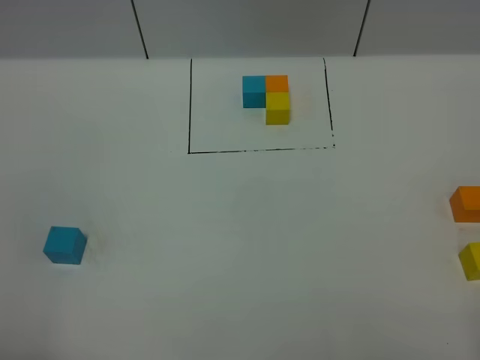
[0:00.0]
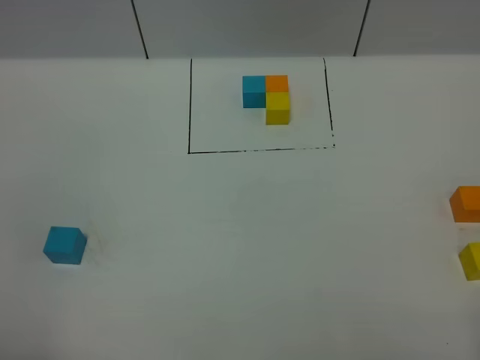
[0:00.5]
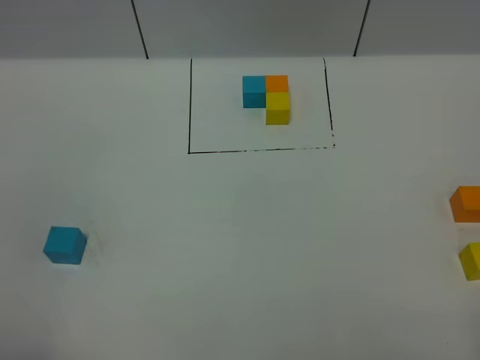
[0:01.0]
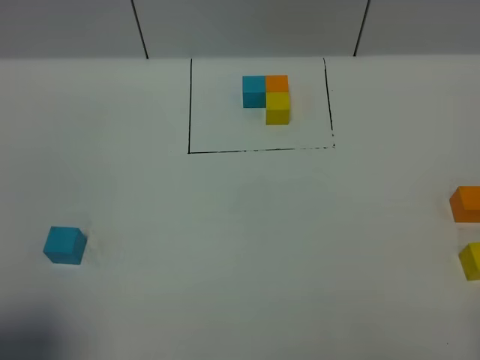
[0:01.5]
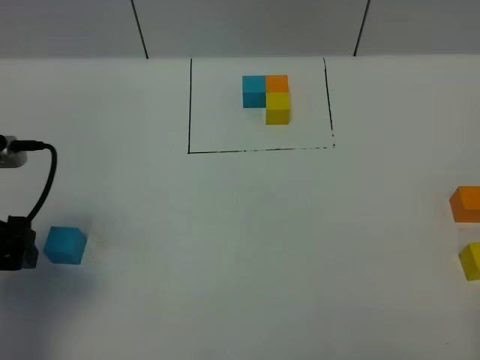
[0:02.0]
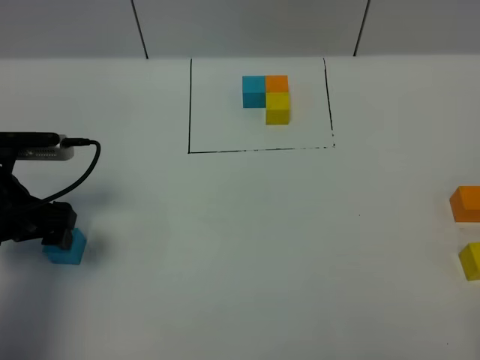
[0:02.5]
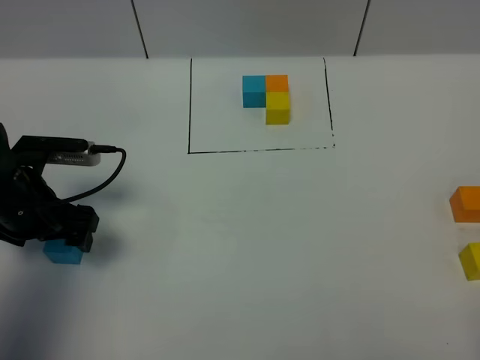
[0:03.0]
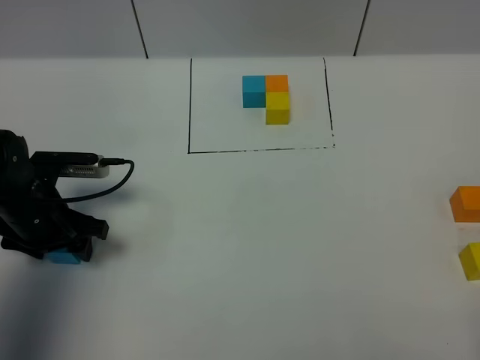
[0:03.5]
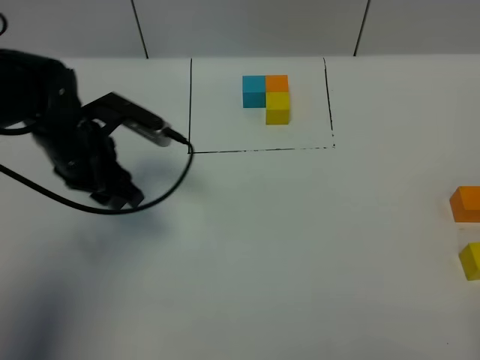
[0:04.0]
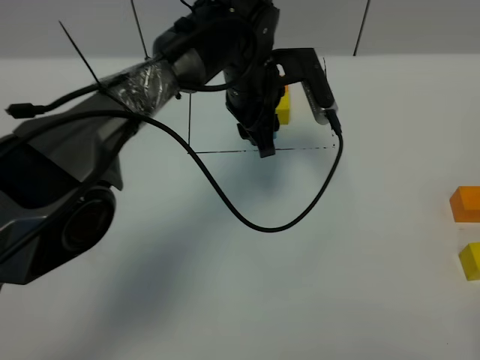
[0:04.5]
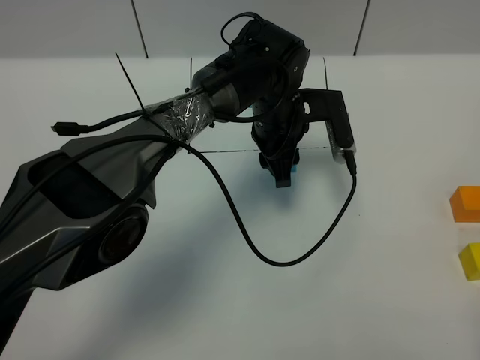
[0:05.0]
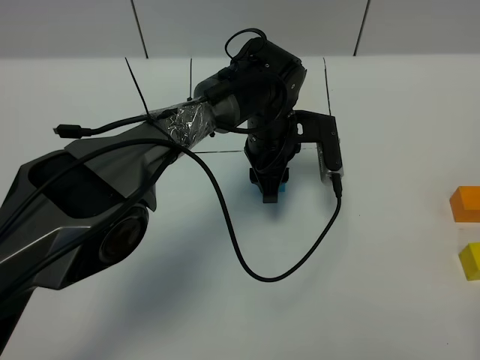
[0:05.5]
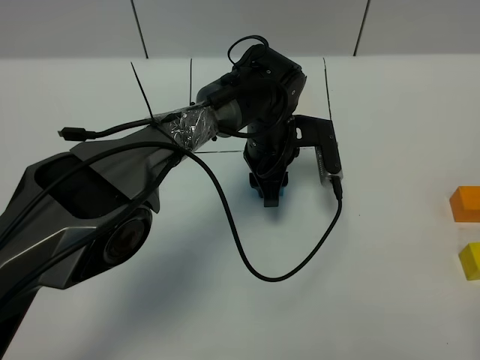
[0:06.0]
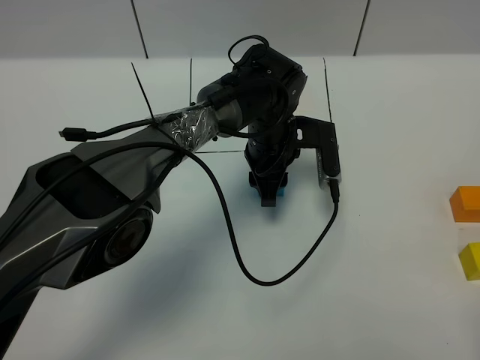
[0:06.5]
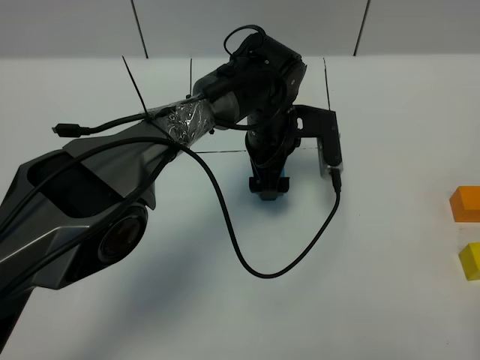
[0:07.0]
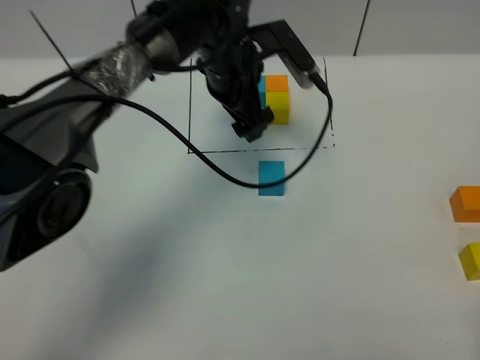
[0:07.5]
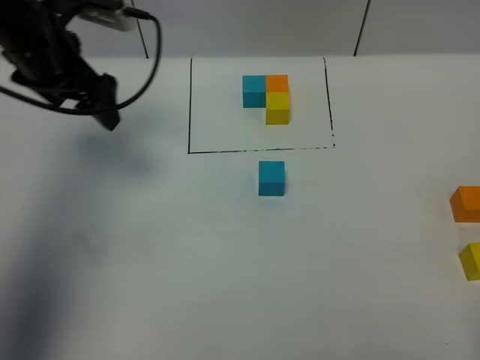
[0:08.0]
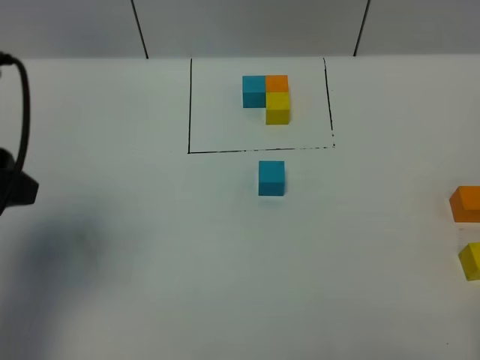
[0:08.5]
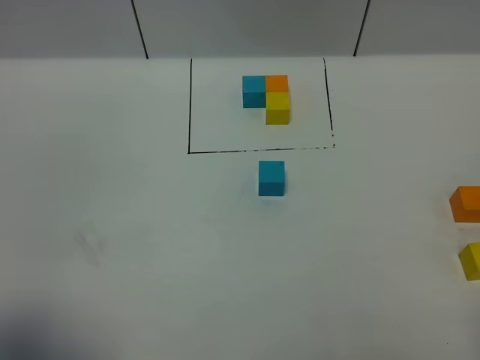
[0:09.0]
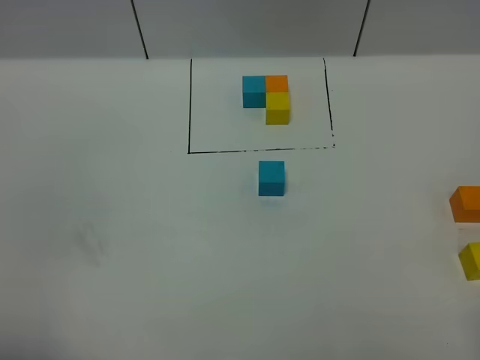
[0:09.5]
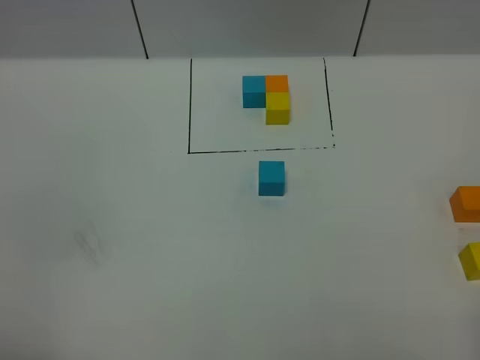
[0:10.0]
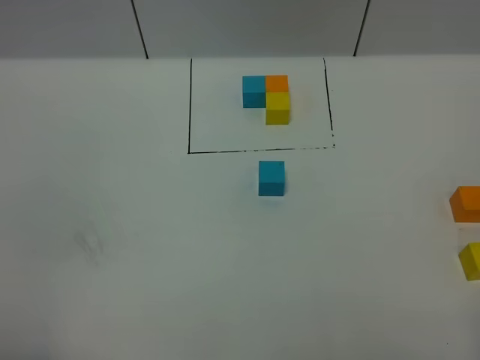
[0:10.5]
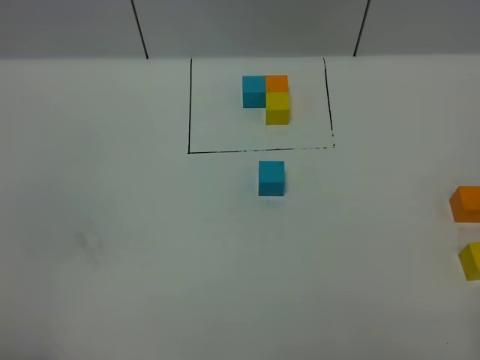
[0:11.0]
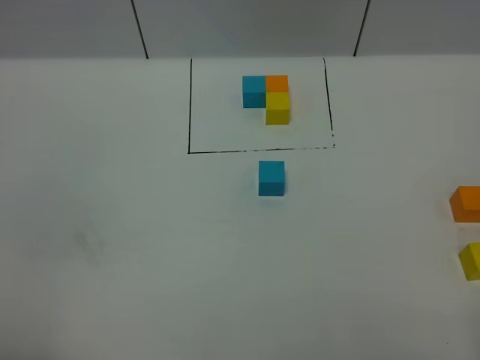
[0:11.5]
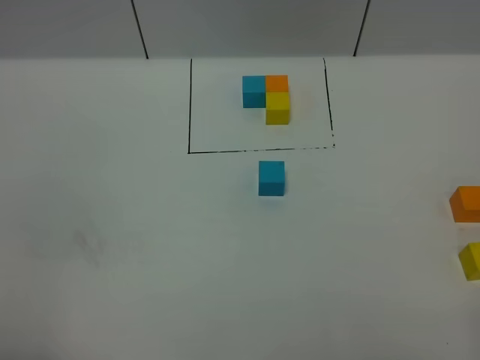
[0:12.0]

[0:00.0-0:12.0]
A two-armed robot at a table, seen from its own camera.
Task of the whole recording: According to the building block template in front, assemble the scattered blocks together.
Step, 0:00.0 to 0:06.5: Put the blue build block in the center of the table.
0:00.0 to 0:02.0: The left gripper goes roughly 20 cm forward.
0:02.0 to 0:04.0: The left gripper shifts about 20 cm forward and to the right, and closes its fingers.
0:04.0 to 0:06.0: The left gripper is displaced to the right by approximately 20 cm.
0:06.0 to 0:08.0: The left gripper moves to the left and upward, approximately 30 cm, and opens its fingers.
0:08.0 to 0:10.0: The left gripper heads backward, covering roughly 40 cm.
0:10.0 to 0:12.0: Both grippers stay put.

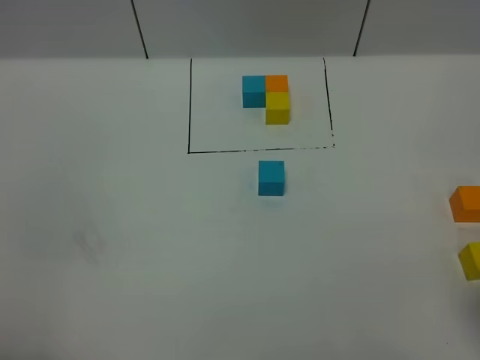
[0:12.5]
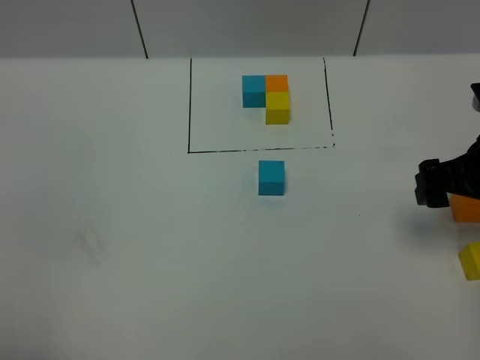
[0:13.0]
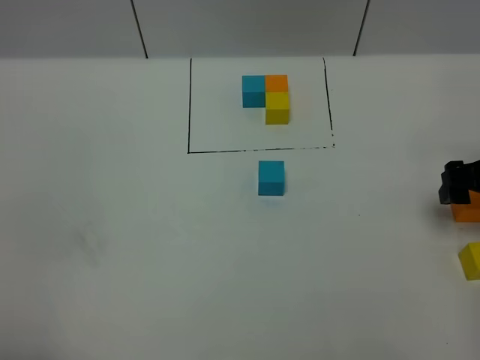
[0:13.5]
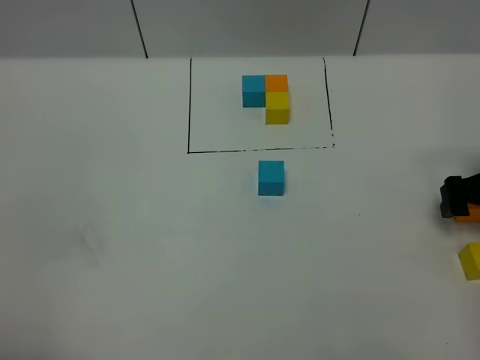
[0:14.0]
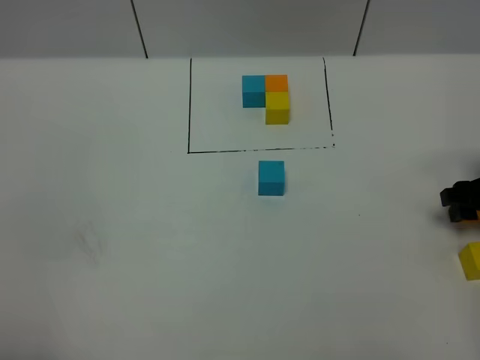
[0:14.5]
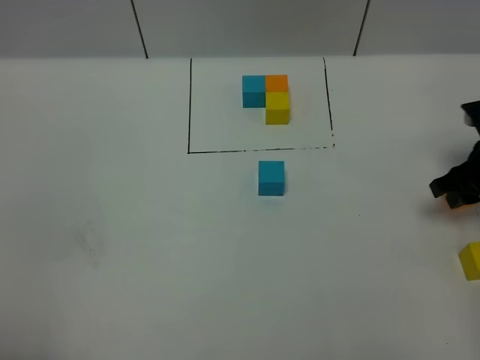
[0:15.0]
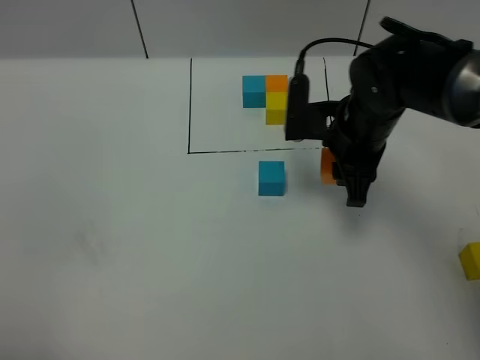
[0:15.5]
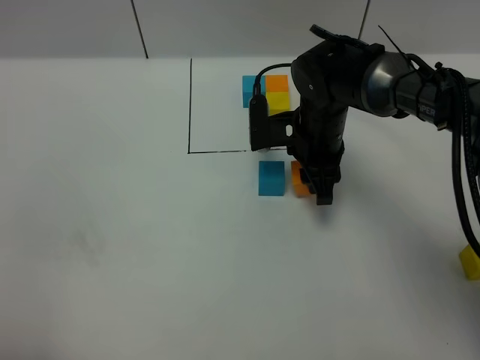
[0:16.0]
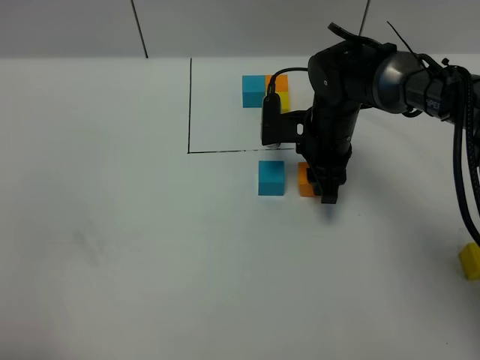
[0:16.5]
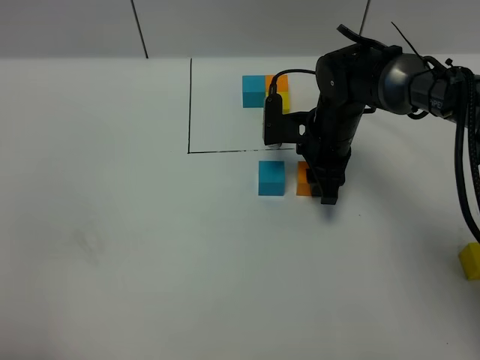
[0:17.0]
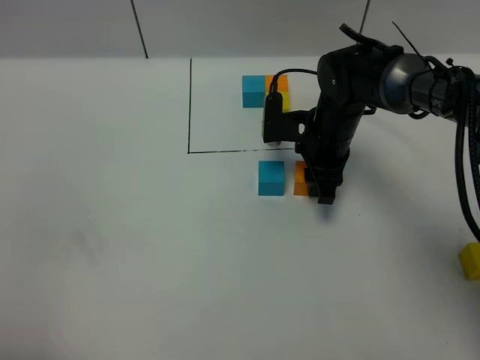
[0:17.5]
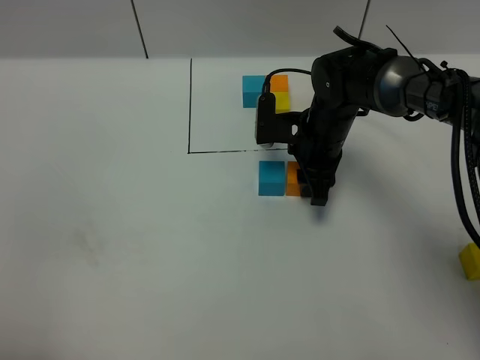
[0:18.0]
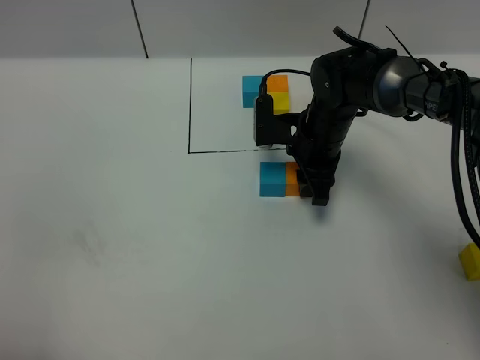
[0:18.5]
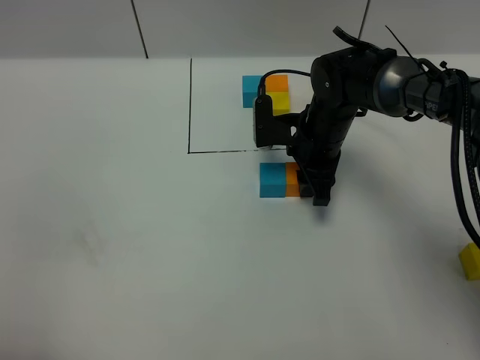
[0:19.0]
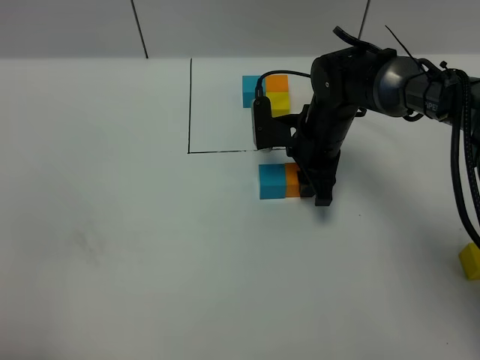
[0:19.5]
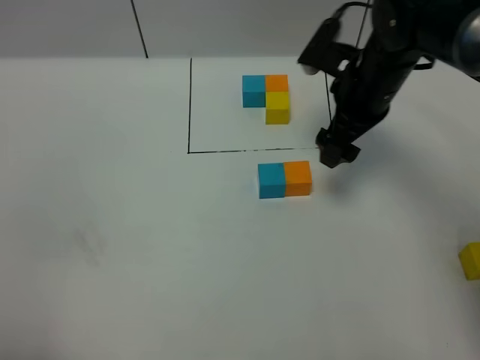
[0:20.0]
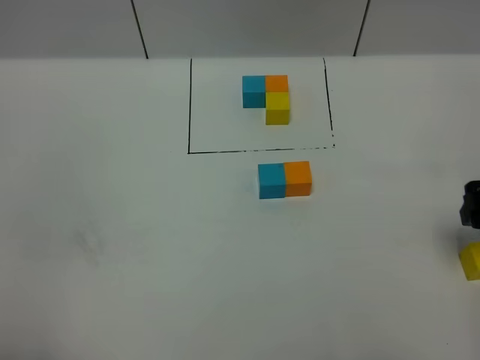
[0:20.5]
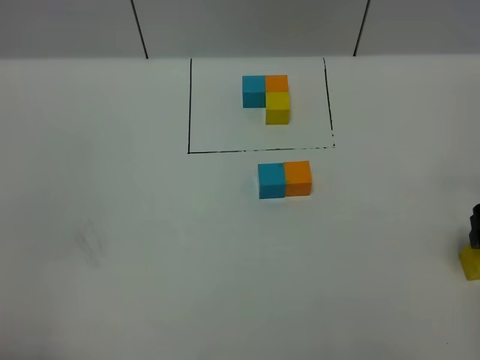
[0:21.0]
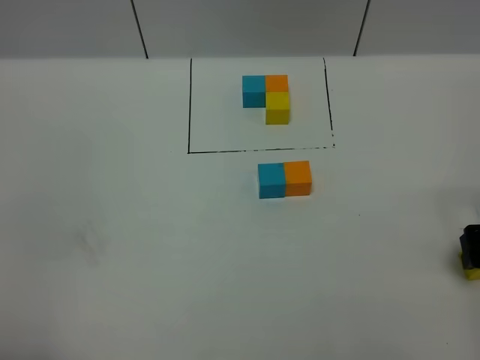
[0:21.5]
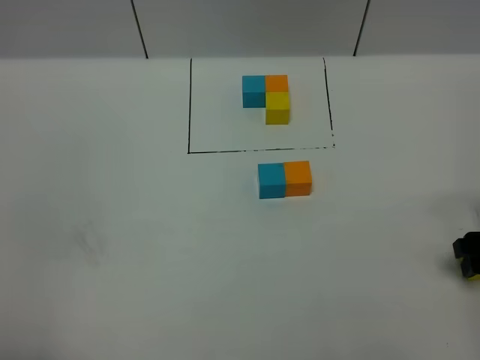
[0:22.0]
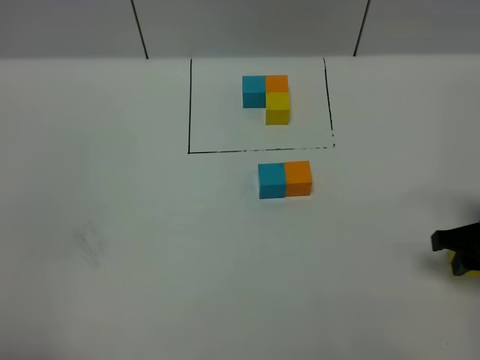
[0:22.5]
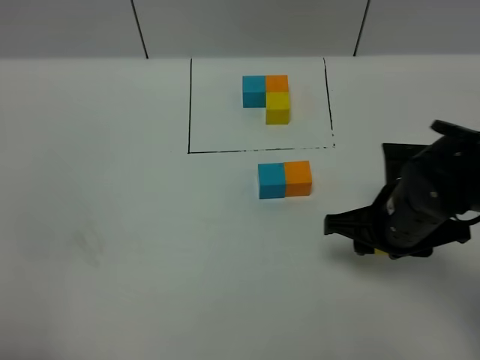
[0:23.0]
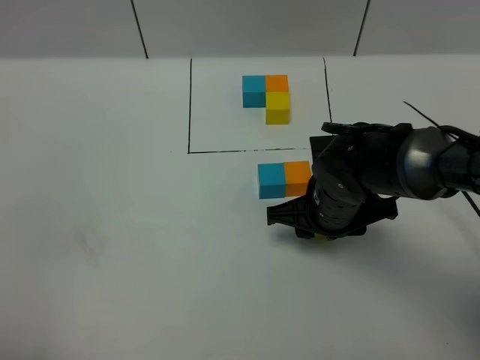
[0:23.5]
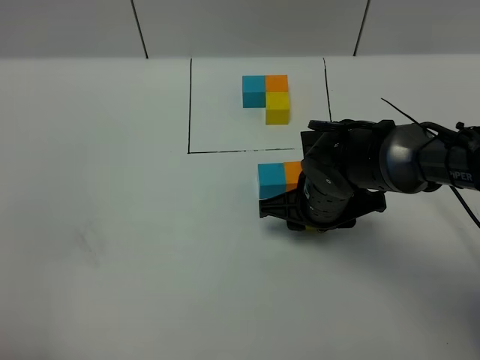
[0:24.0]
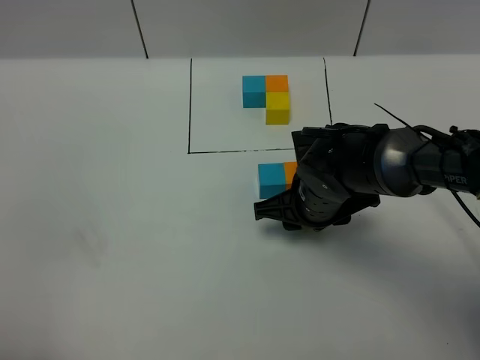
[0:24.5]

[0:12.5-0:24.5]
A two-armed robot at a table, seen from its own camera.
Task of the whole recording: According to the building block template in front, assemble the scattered blocks together.
Step, 0:12.5 to 0:19.5: Put the orange build block on the front of the blue build block.
0:12.5 to 0:14.5: The right gripper goes some 25 cm forward and downward, and closes up.
0:14.5 to 0:16.5: The right gripper is displaced to the left by some 25 cm.
0:16.5 to 0:18.5: The grippers stay close to where they were, moving slightly.
0:18.5 to 0:20.5: The right gripper travels to the right and backward by approximately 25 cm, and opens.
0:20.5 to 0:22.5: The right gripper is displaced downward by some 5 cm, and closes its fingers.
0:22.5 to 0:24.5: The right gripper moves to the left, some 20 cm.

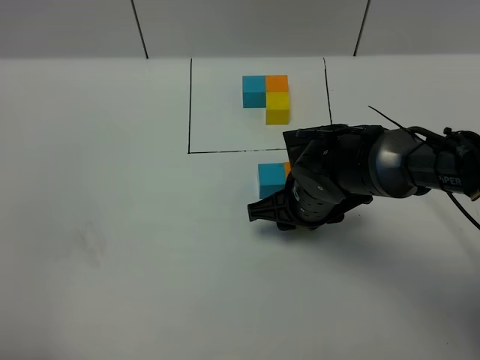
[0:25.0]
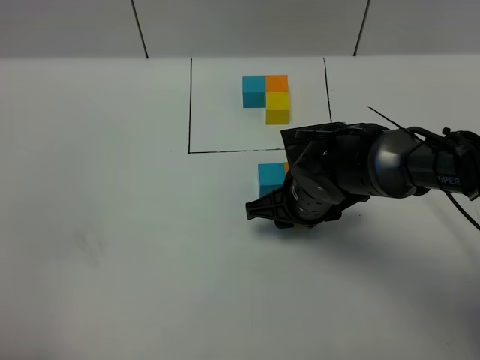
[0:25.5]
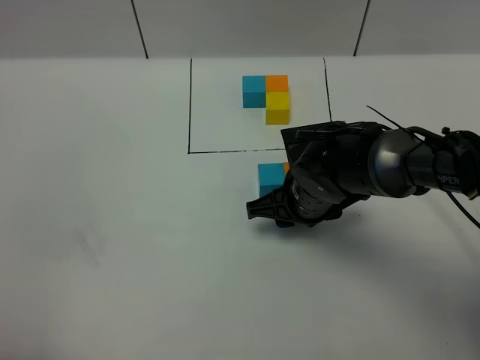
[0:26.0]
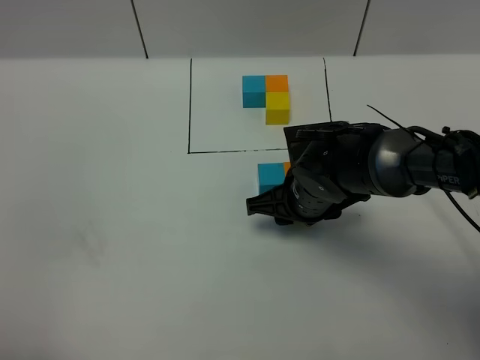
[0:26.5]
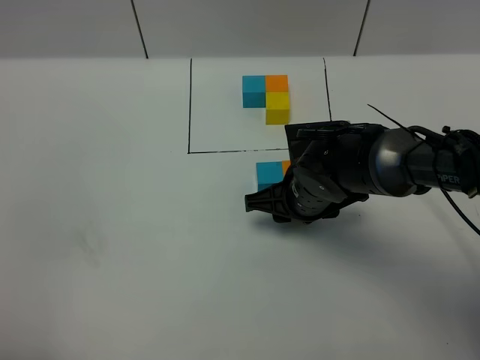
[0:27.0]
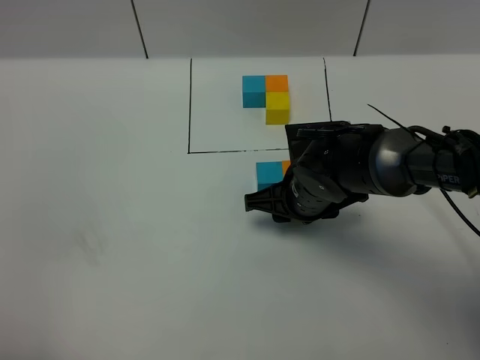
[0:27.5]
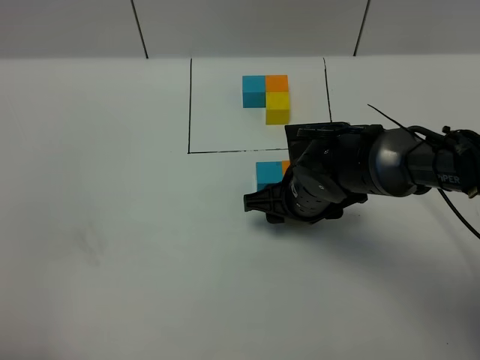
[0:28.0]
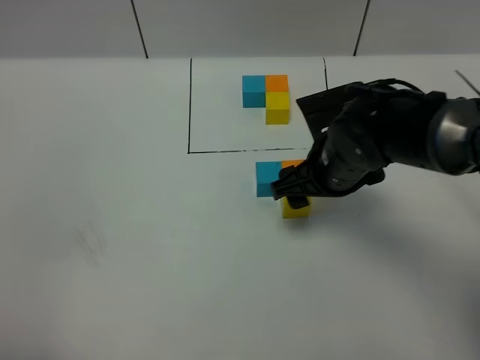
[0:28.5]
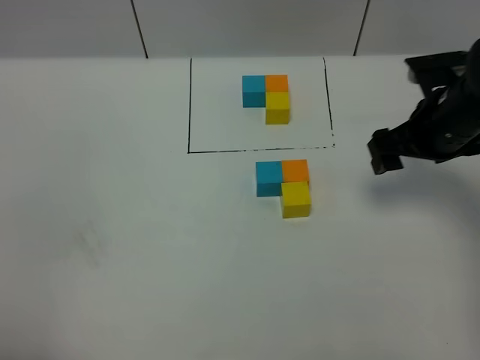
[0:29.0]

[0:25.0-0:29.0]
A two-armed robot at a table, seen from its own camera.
Task of the whole recording: According to the building block template in front, assemble the scattered blocks together.
Step, 0:25.0 to 0:27.5: Put the yellow build block on the behind of the orange build block.
0:25.0 to 0:27.0: Neither gripper changes place.
0:27.0 to 0:29.0: The right gripper travels to the right and upward by some 20 cm, and opens.
